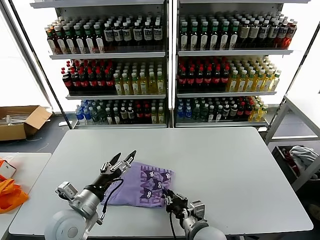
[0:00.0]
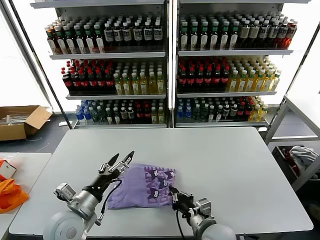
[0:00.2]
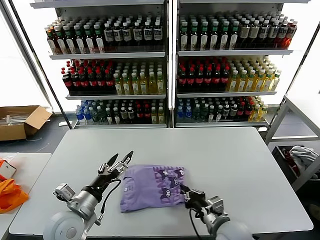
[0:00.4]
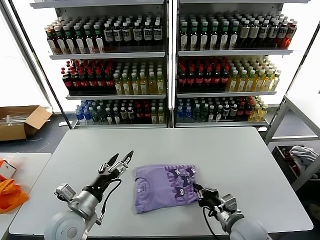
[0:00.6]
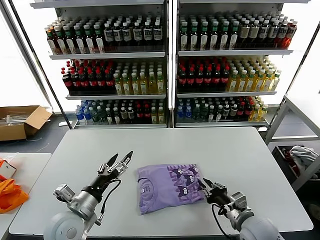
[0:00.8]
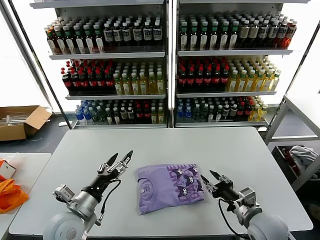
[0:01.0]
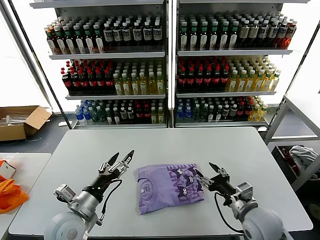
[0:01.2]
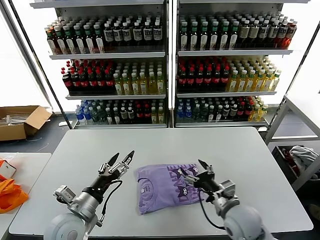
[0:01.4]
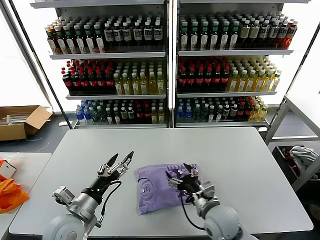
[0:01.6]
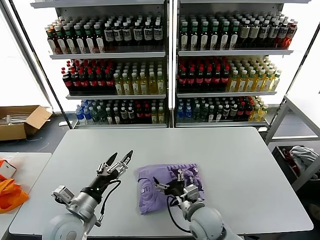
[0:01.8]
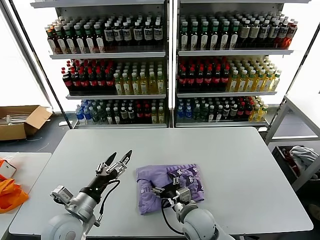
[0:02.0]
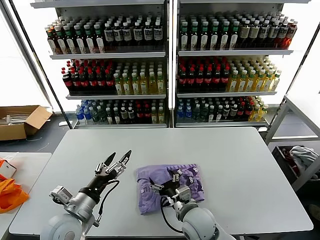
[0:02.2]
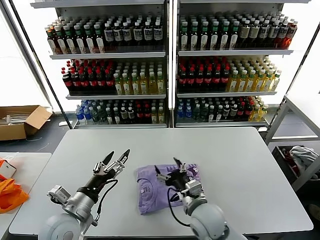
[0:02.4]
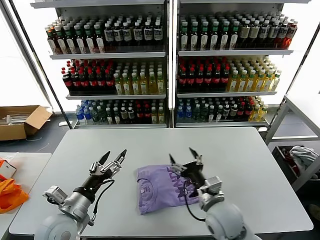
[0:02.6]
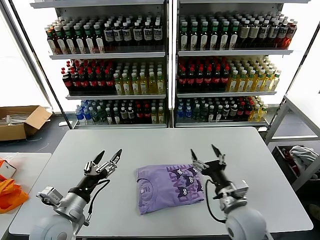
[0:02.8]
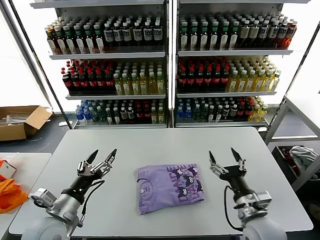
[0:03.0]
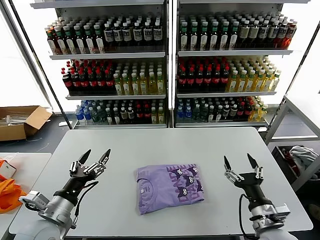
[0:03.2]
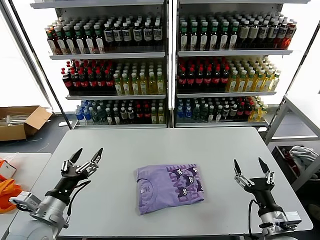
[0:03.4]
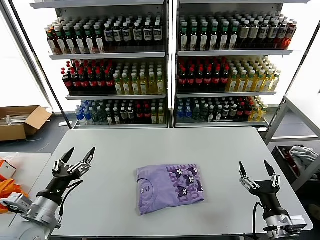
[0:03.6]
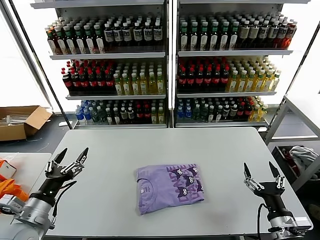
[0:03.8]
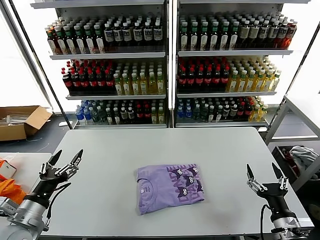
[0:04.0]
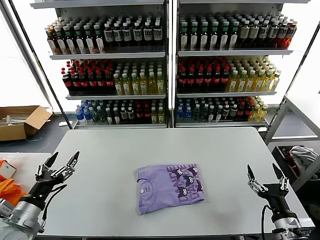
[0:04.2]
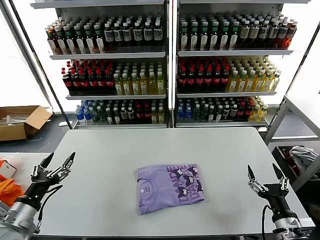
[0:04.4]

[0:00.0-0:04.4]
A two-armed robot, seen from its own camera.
Task of the whole recording: fold and organize the clothes.
Step, 0:00.0 to 0:02.2: Drag the clothes to the center of the table.
0:00.0 to 0:01.4: The right gripper heads to the right and upward, covering roughly 10 cm, and opens its fingers.
0:01.4 to 0:03.0: The right gripper reaches roughly 15 cm to the left, then returns.
0:03.0 to 0:04.4: The left gripper shifts about 10 cm to the left. Meanwhile the right gripper goes some 10 cm to the right and backward.
